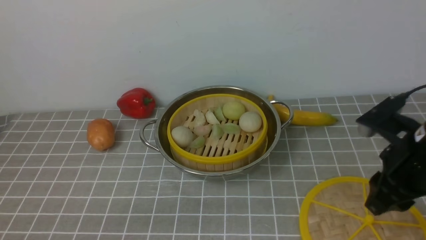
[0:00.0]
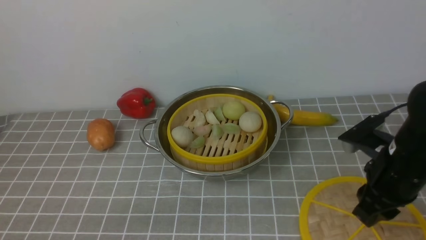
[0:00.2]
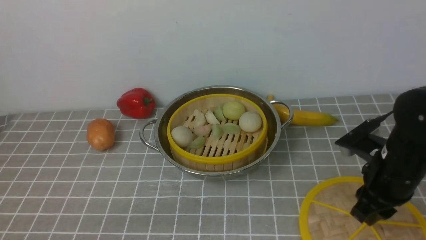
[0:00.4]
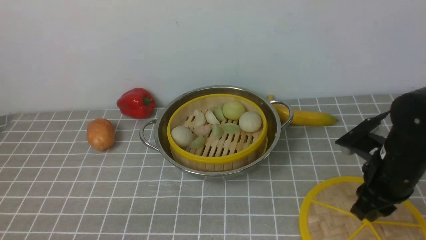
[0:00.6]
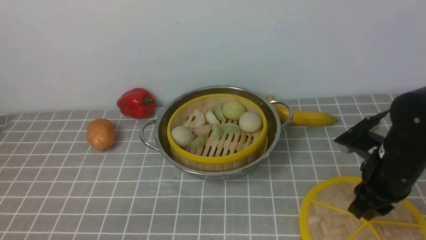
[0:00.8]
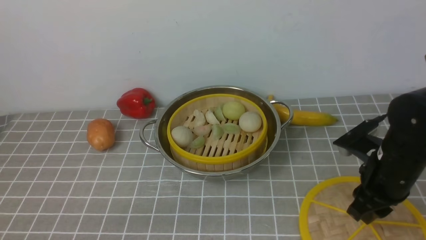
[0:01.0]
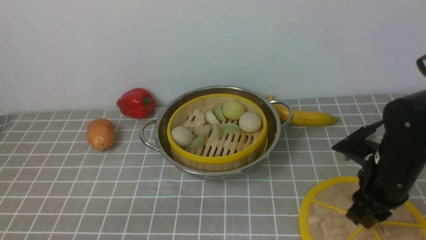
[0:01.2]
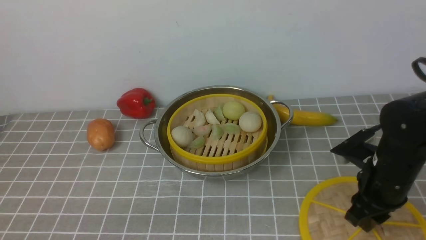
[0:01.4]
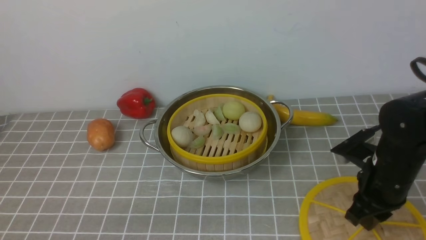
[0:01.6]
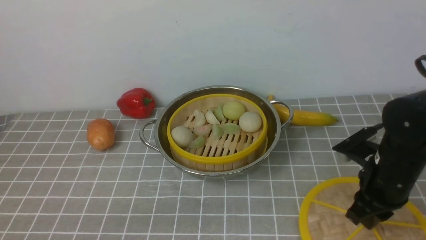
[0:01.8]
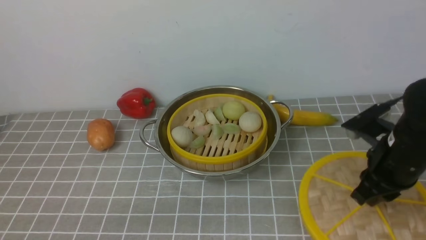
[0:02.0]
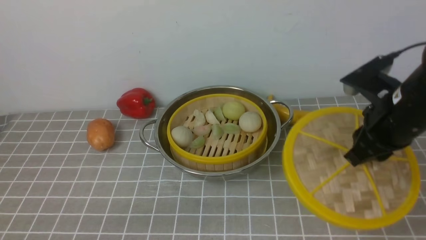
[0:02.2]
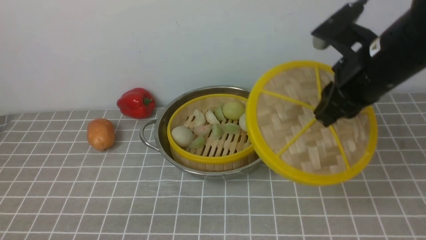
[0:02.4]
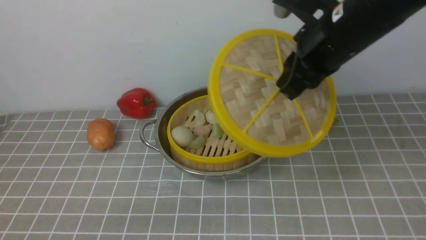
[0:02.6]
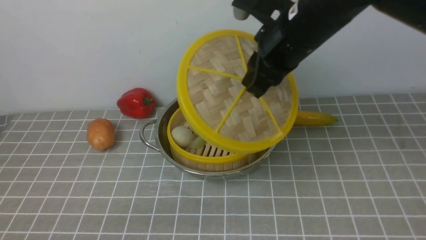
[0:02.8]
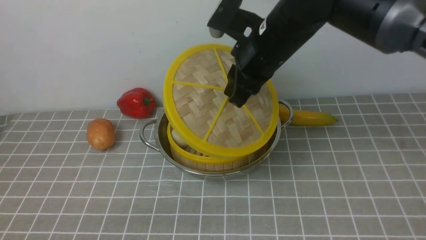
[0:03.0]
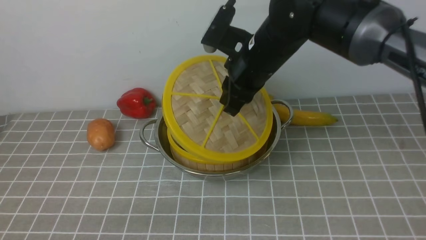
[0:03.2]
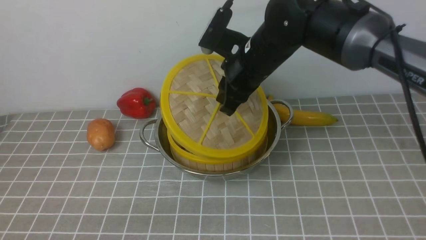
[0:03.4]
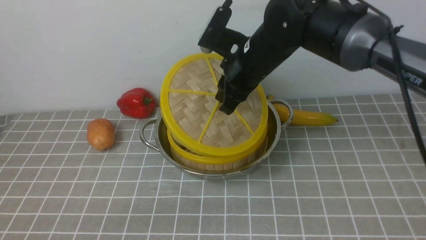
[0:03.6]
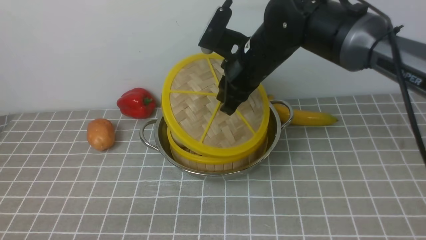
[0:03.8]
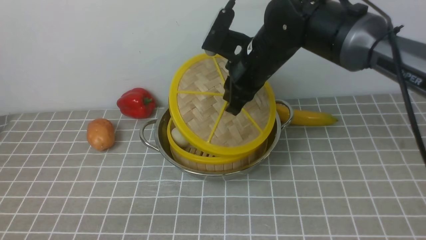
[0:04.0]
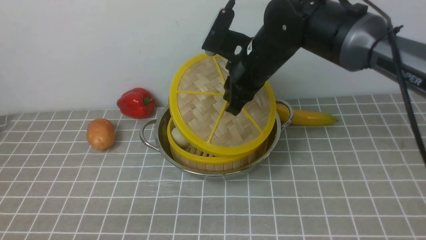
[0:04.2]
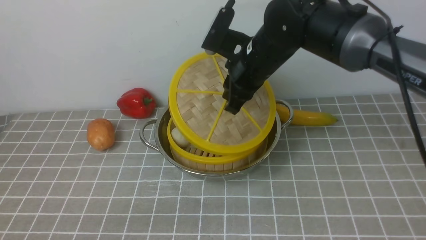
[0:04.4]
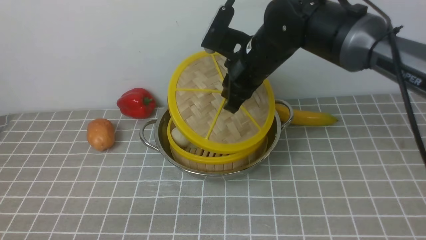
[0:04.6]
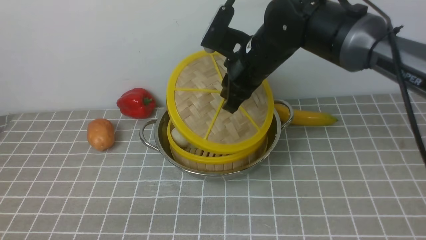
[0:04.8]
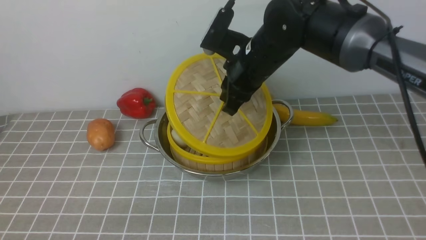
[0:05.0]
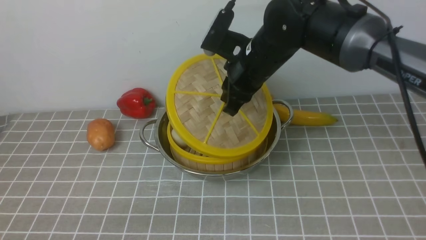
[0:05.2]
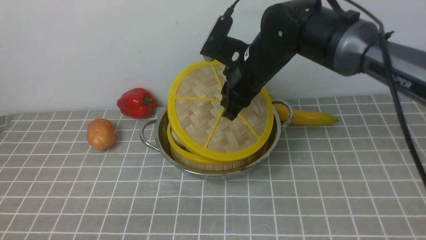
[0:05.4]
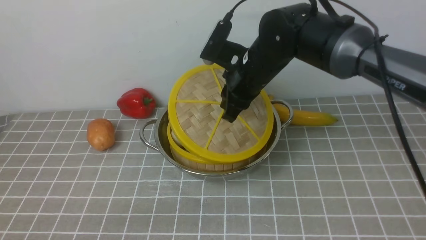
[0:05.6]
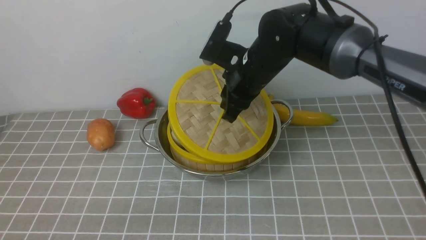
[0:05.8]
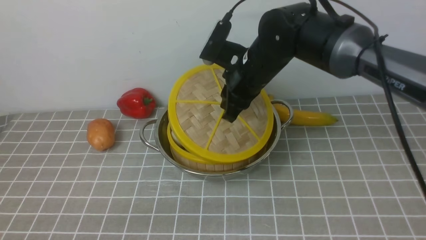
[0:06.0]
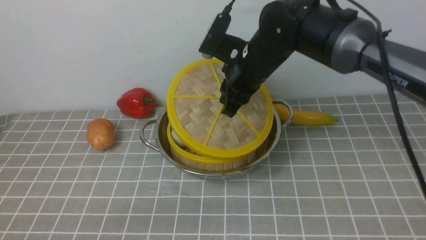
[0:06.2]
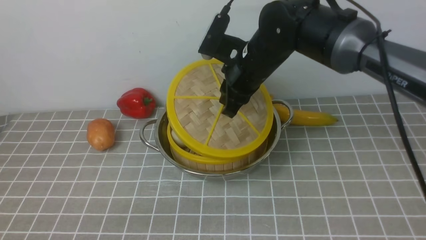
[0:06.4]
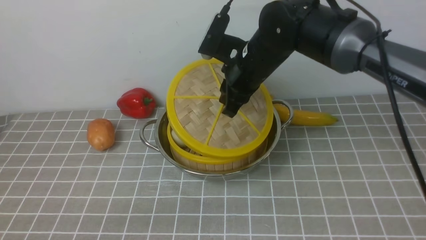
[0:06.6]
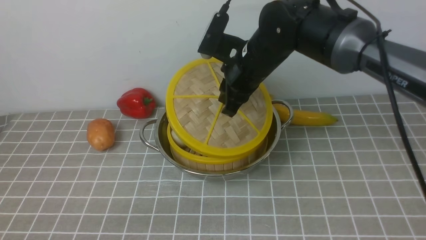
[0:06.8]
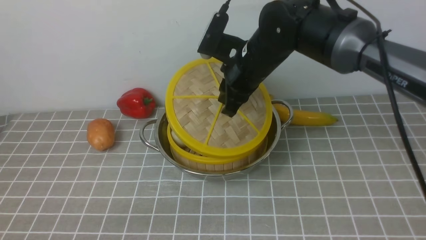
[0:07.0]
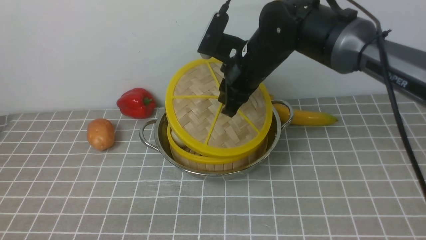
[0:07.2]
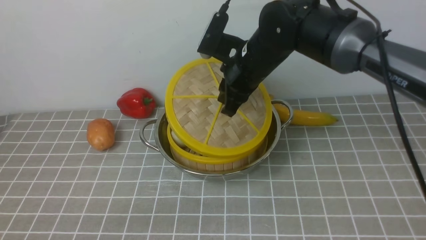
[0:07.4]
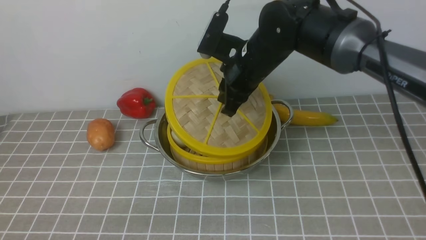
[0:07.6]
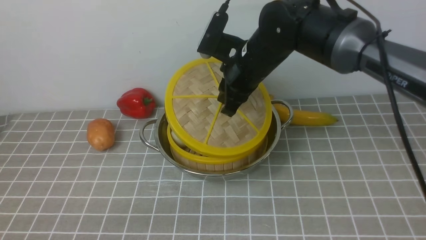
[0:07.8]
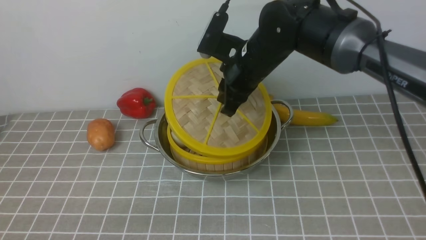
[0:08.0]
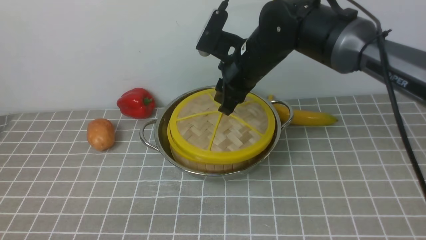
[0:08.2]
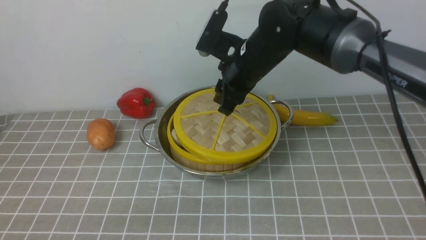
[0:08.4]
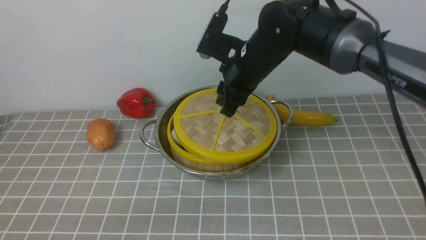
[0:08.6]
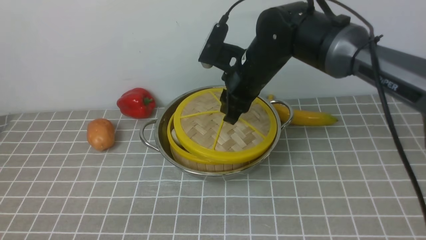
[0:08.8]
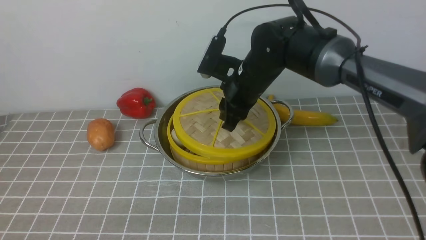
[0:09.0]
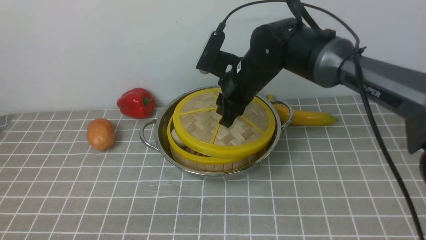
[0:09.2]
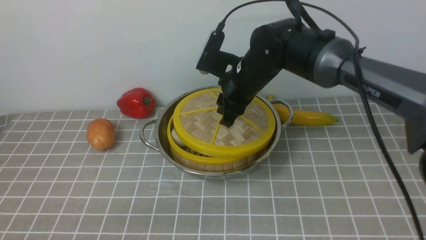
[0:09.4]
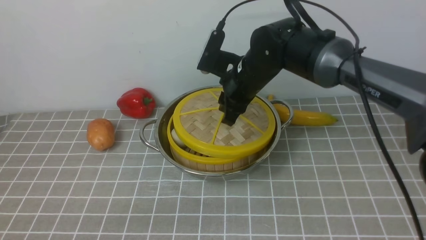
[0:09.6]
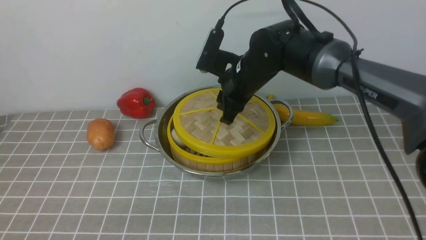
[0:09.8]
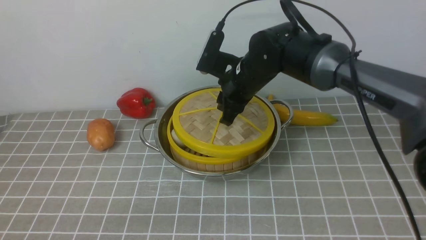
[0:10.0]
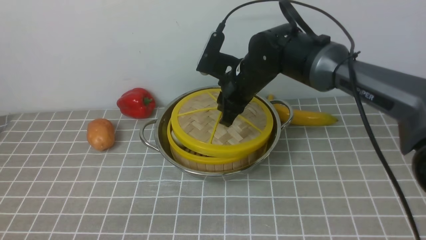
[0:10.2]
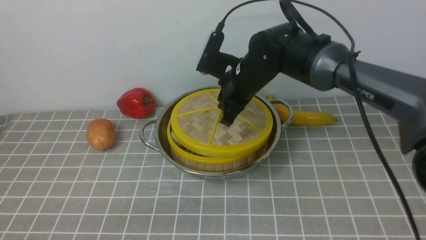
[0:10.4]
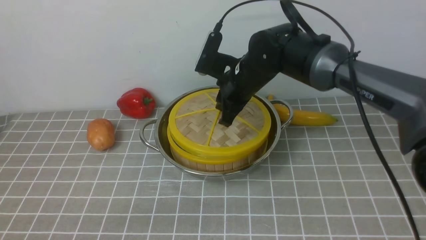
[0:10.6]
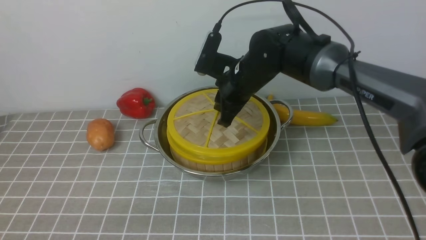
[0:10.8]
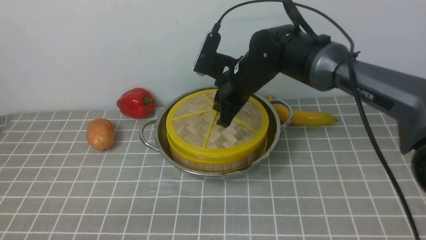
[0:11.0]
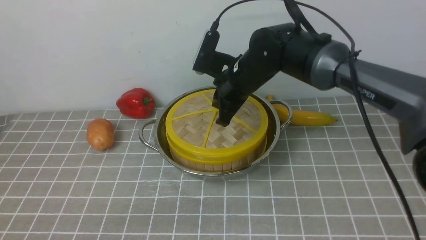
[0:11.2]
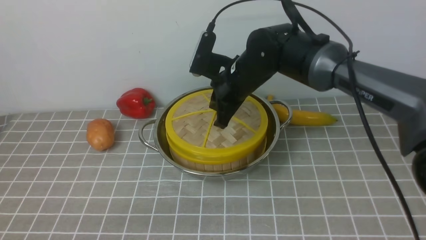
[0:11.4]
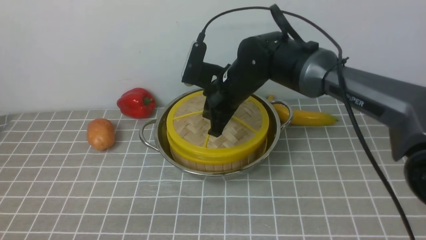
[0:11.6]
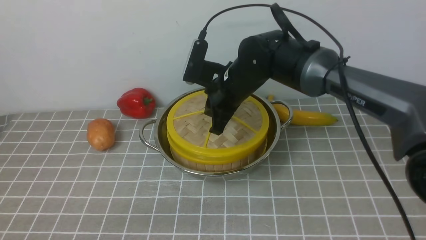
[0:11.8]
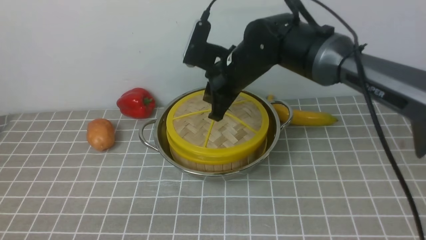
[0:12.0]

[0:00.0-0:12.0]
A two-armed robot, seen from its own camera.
Task of the whole recording: place the steamer in the pot on the grey tablecloth, and put the lid on the steamer.
0:00.0 to 0:01.6: The right gripper heads downward, covering approximately 5 cm.
0:01.6 to 0:03.0: The right gripper moves to the left, upward and forward, approximately 25 cm.
0:03.0 to 0:04.4: The grippers stay close to where they were, moving slightly.
0:04.4 to 0:06.0: There are only small adjustments of the grippers.
0:06.0 to 0:07.6: Both grippers stay about where they are.
0:07.6 to 0:09.0: The right gripper opens.
0:09.0 to 0:10.4: The right gripper closes.
0:10.4 to 0:12.0: The right gripper closes and opens again.

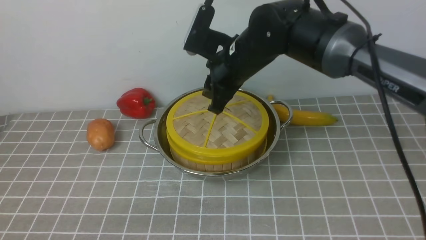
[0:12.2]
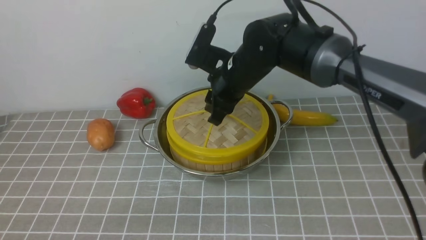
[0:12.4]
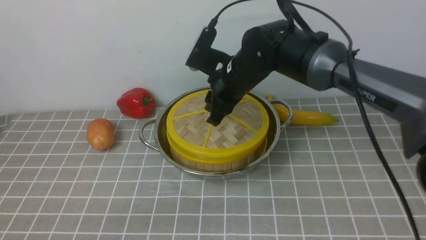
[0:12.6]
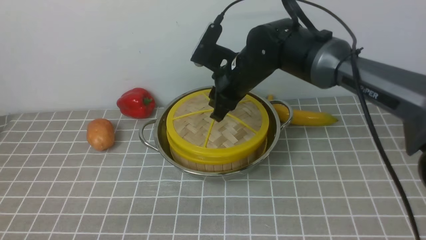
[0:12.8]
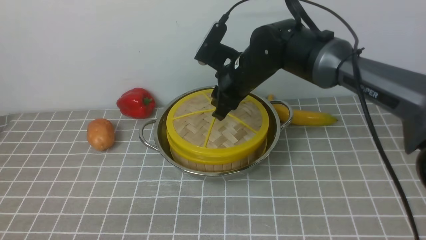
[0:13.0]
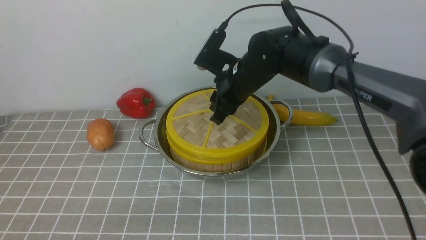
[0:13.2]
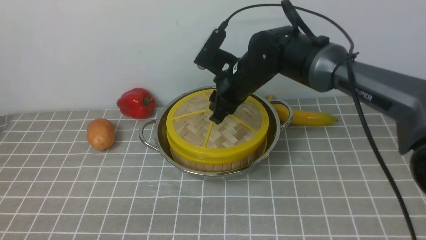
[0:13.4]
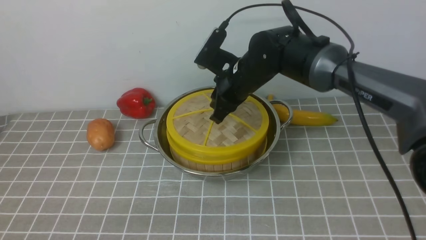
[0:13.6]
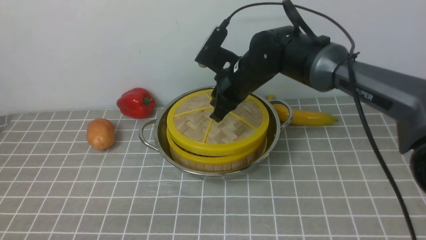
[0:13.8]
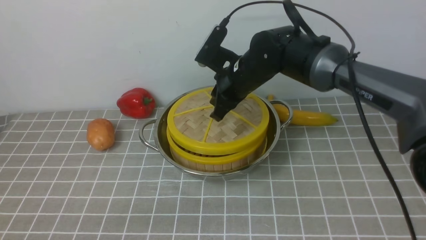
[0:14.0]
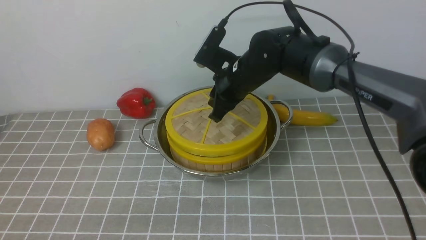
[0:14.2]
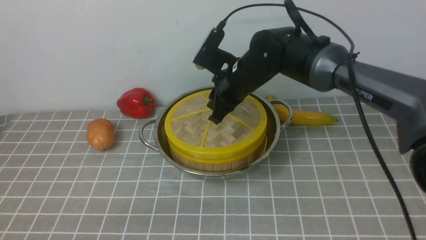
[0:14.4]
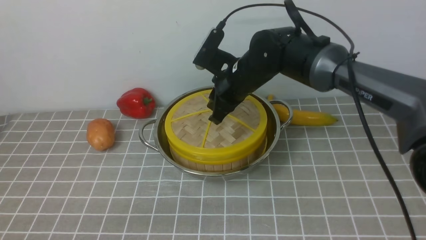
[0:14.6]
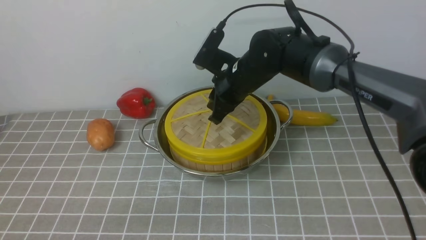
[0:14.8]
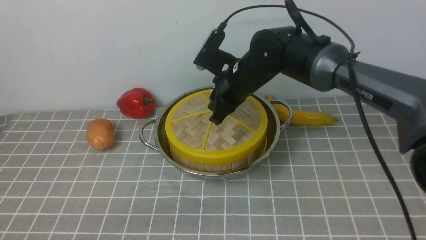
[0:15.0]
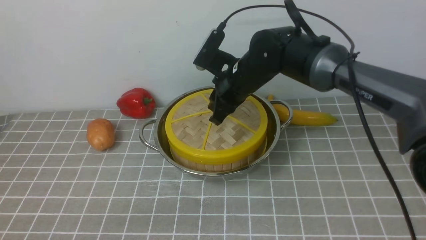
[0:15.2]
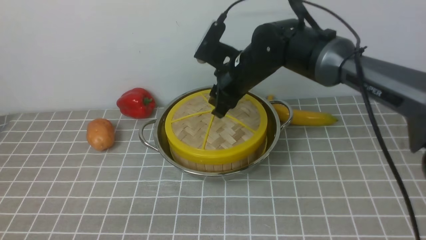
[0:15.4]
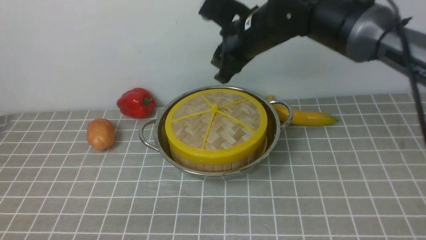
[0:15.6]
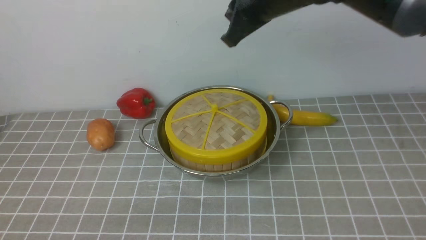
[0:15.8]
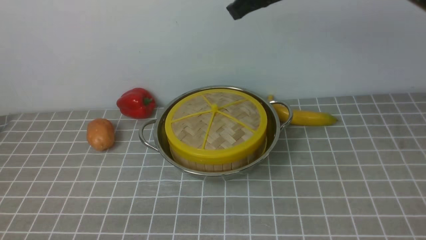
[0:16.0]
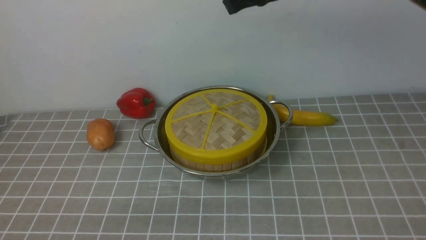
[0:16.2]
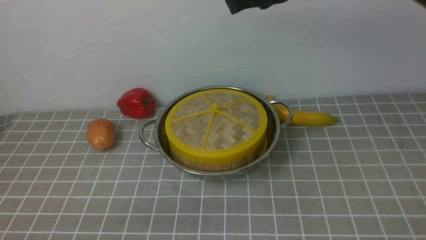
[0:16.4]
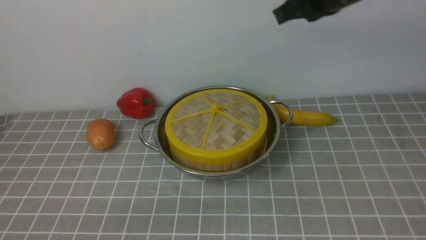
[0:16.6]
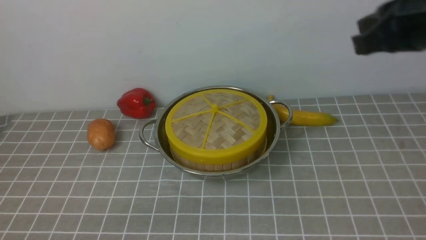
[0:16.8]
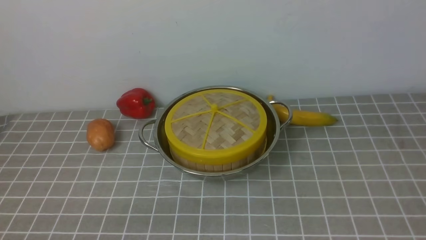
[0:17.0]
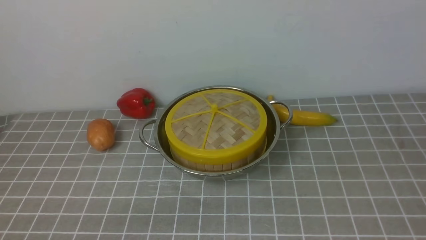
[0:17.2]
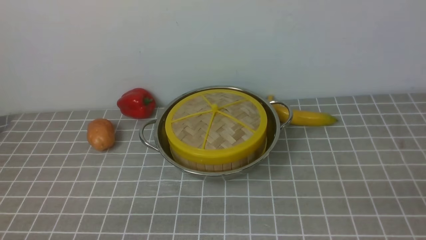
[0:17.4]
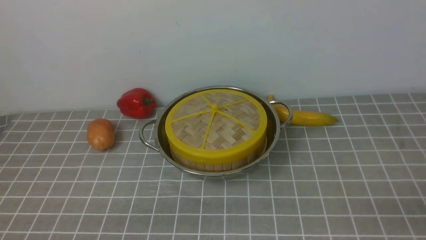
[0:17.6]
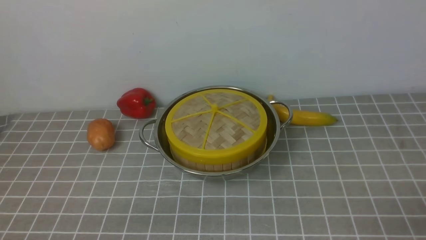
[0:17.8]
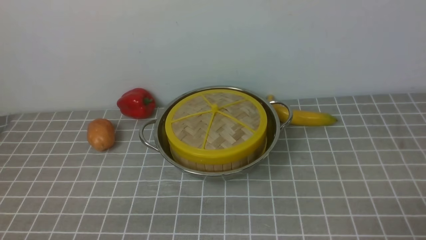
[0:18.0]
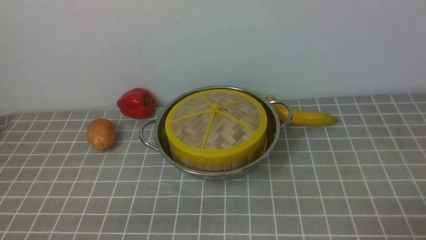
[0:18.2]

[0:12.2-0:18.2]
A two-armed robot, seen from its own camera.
Task of the whole recording: place the steamer in the pot on the grey tablecloth, and put the lid on the steamer.
Step, 0:12.2 to 0:15.4: use the right arm to place the steamer lid on the steamer.
0:12.2 to 0:13.8: The grippers stay close to where they were, moving slightly.
0:13.8 to 0:15.2: The two grippers keep their place.
0:15.2 to 0:16.6: The right gripper goes approximately 25 cm upward, to the right and backward, and closes.
0:16.6 to 0:18.2: The right gripper heads backward, downward and to the right, covering roughly 40 cm, and opens its fingers.
